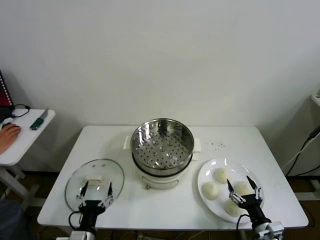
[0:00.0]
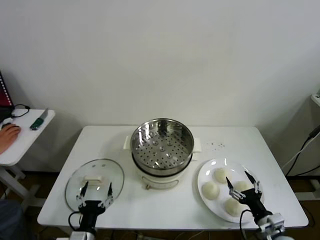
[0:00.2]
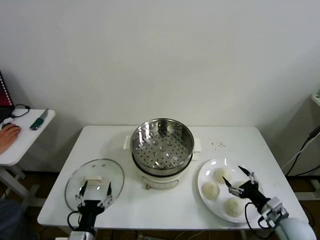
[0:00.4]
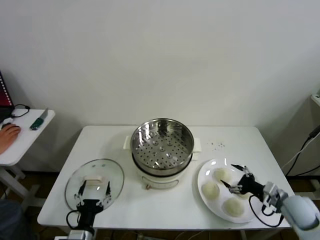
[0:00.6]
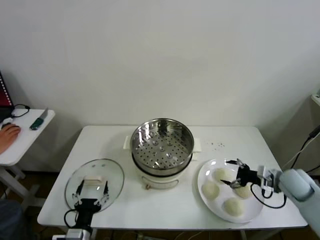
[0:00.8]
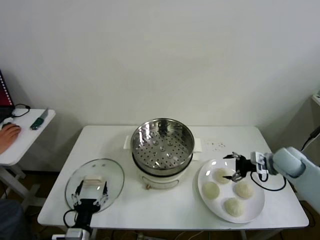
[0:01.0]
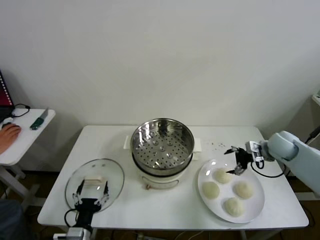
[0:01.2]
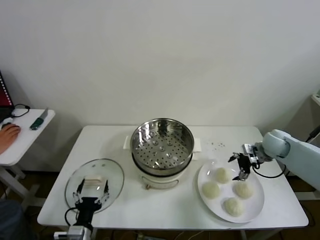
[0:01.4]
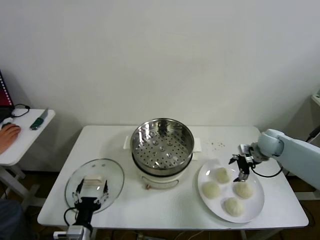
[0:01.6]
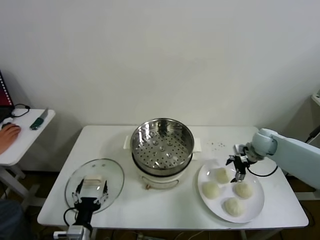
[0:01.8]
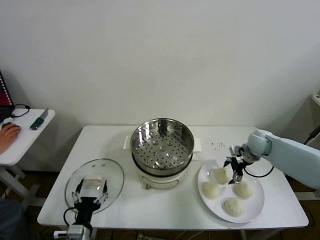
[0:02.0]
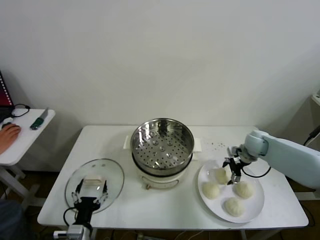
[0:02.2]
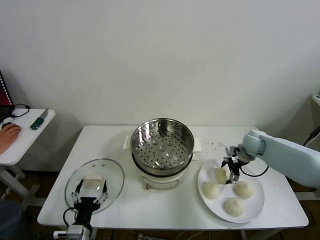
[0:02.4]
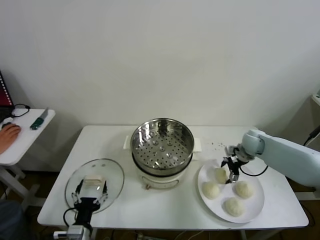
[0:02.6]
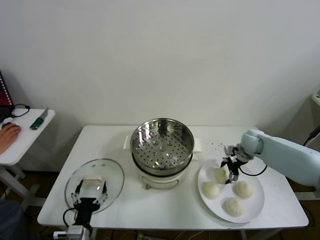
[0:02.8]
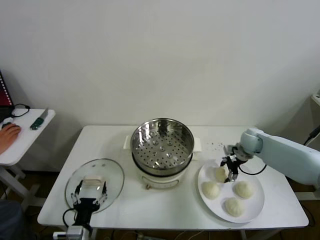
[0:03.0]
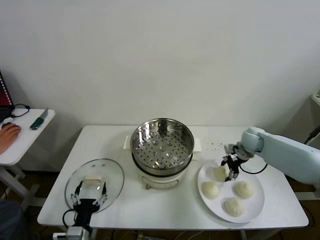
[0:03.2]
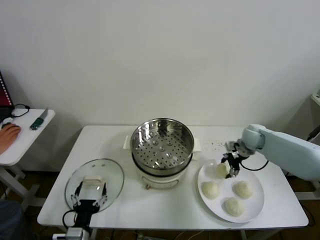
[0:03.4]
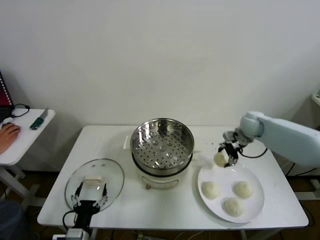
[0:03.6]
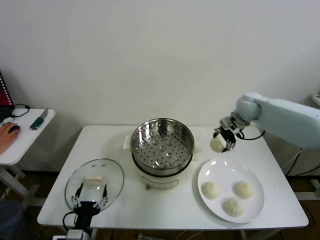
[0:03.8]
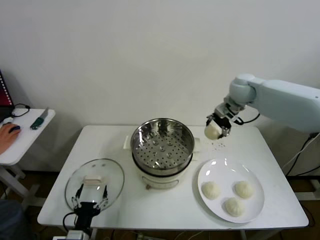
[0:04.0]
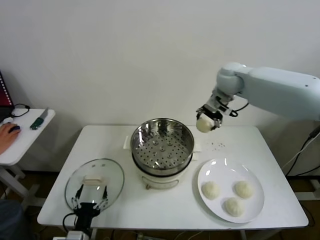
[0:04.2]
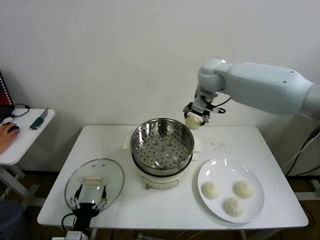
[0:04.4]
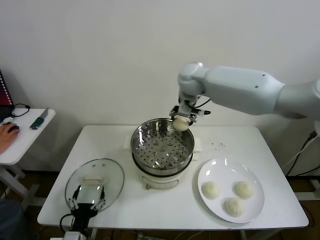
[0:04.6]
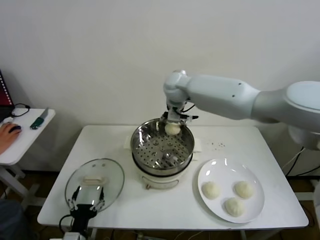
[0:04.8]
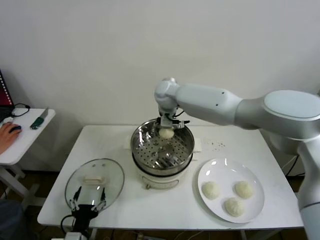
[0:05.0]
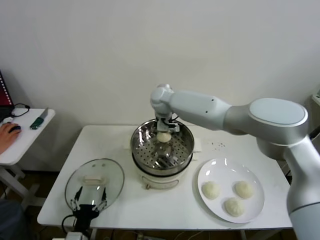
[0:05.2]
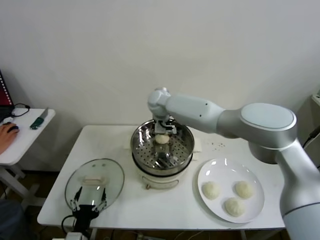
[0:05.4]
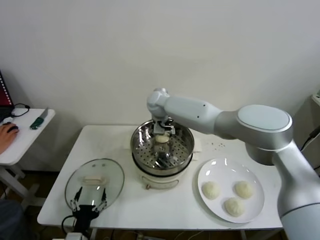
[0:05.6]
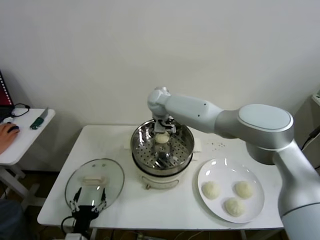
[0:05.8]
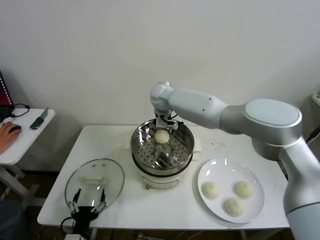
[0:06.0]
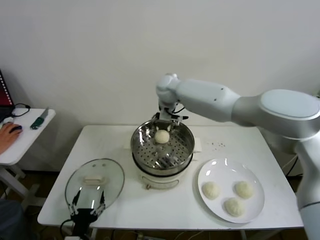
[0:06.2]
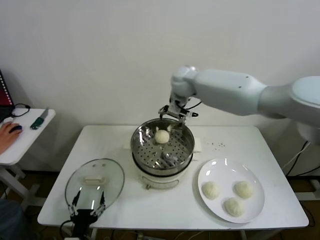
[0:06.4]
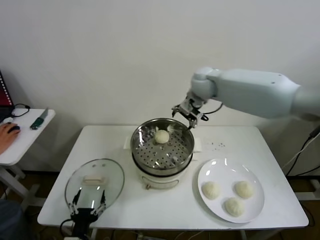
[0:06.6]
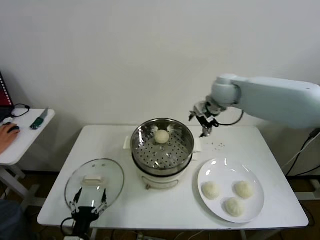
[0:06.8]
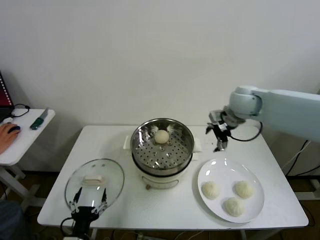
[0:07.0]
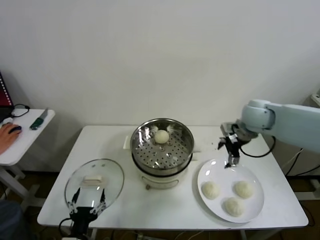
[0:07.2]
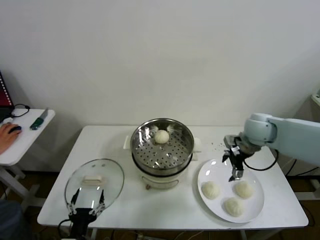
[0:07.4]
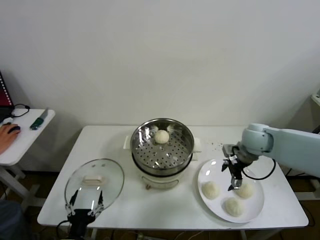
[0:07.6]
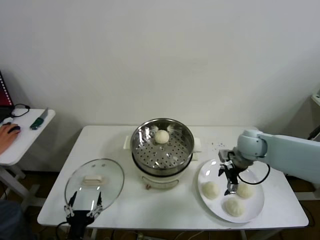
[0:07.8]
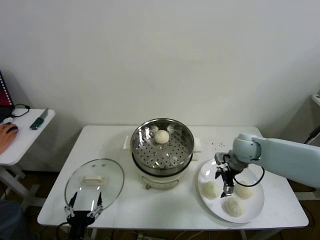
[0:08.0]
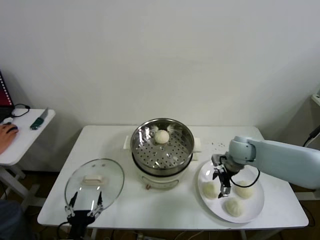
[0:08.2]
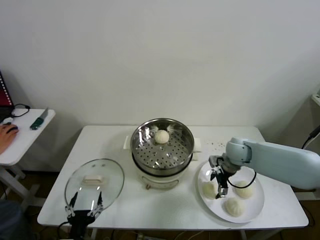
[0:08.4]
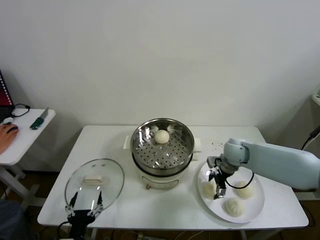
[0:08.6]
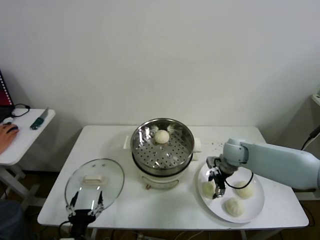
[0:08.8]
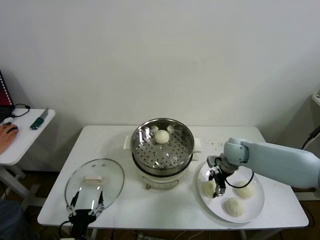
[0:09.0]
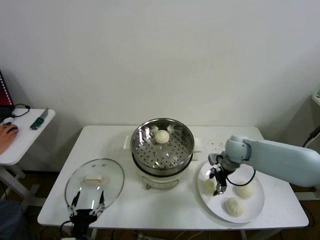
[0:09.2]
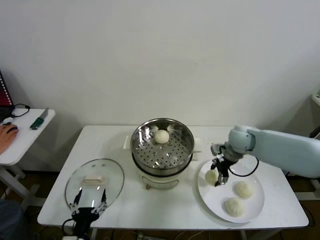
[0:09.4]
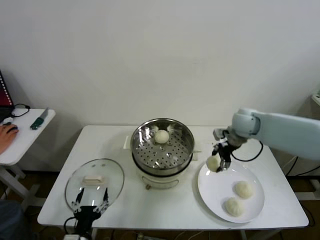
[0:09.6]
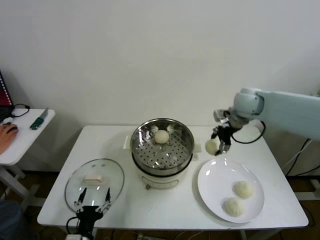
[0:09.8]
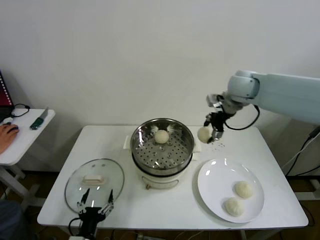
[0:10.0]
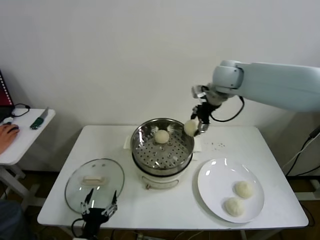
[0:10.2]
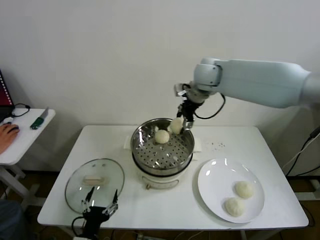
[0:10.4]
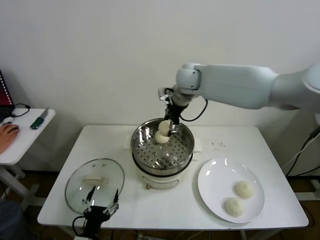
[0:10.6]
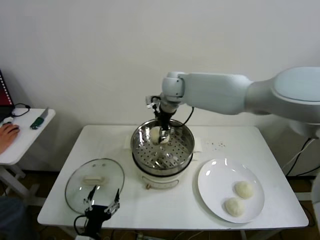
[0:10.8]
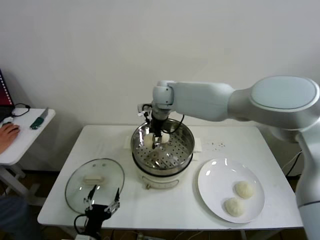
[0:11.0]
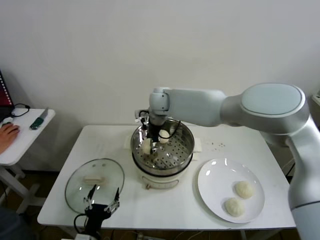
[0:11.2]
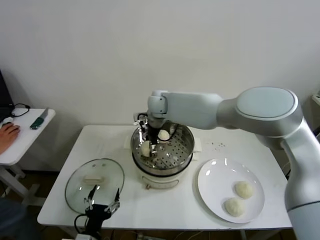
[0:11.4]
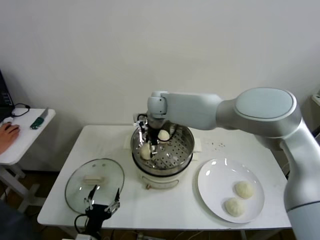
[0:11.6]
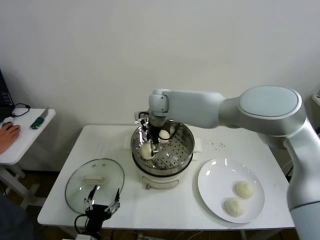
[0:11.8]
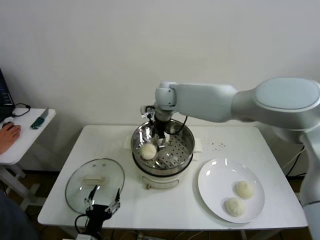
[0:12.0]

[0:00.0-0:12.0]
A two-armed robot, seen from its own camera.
Step, 0:00.0 to 0:03.0: Grasp the baozi in the plate with right gripper.
Step, 0:03.2 to 0:05.4: Place the baozi on the steamer with right gripper.
Step, 0:05.8 to 0:08.6: Grasp the baozi in the plate with right gripper.
Step, 0:08.8 to 0:11.4: Place the baozi on the steamer with right gripper.
0:01.6 to 0:03.0: The right gripper ends up roughly 5 cm from where it was, and closes.
0:03.0 to 0:04.4: The right gripper moves upward and to the left, approximately 35 cm.
0:04.4 to 0:06.0: The right gripper heads to the left and downward, covering approximately 20 cm, and opens up.
0:06.0 to 0:07.6: The right gripper goes some 35 cm to the right and backward.
0:07.6 to 0:09.0: The right gripper goes about 10 cm downward, and closes up.
0:09.0 to 0:10.4: The right gripper moves upward and to the left, about 30 cm.
0:10.4 to 0:12.0: The right gripper is displaced to the left and downward by some 15 cm, and opens its fingers.

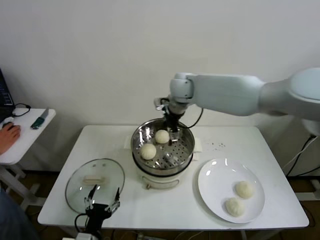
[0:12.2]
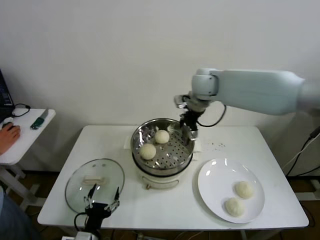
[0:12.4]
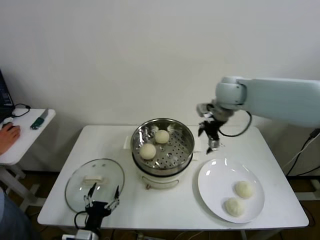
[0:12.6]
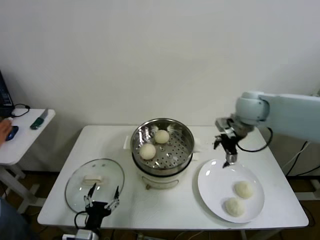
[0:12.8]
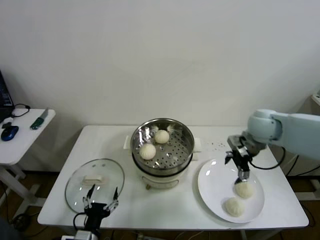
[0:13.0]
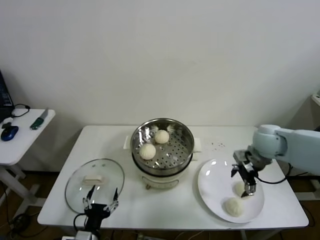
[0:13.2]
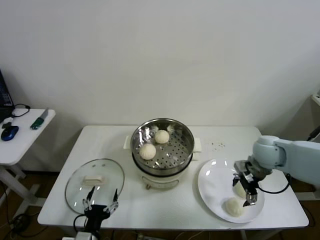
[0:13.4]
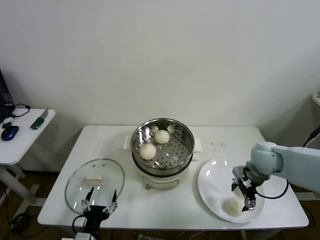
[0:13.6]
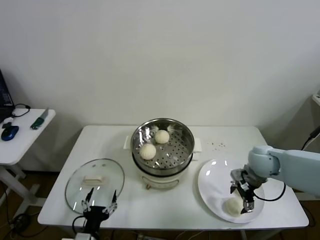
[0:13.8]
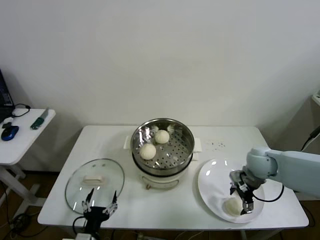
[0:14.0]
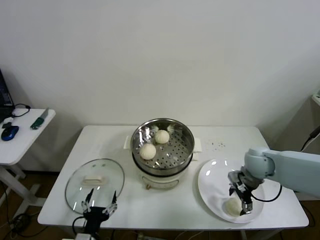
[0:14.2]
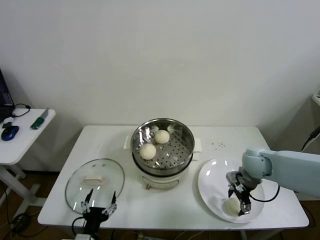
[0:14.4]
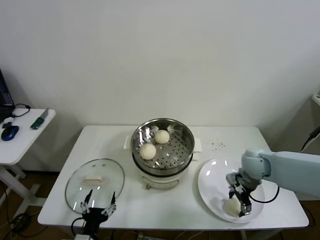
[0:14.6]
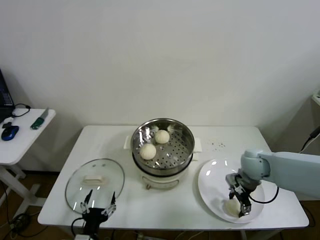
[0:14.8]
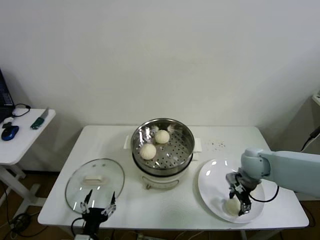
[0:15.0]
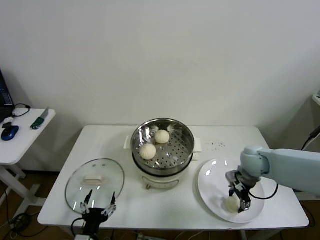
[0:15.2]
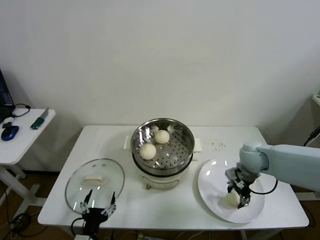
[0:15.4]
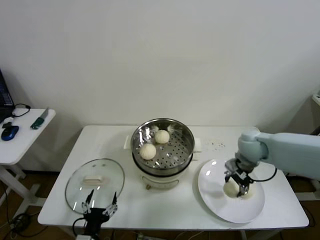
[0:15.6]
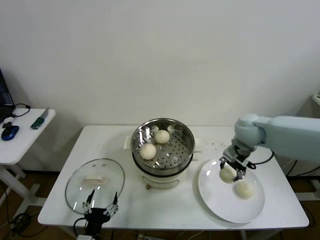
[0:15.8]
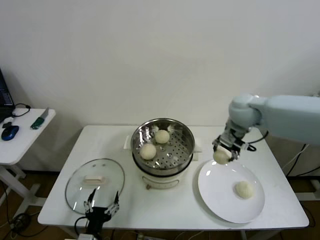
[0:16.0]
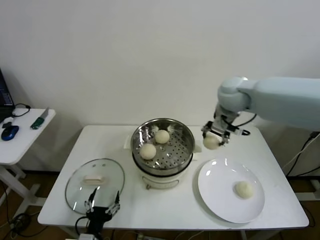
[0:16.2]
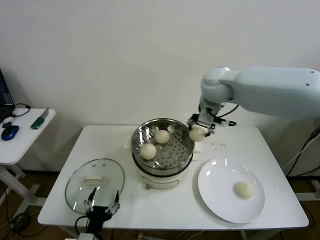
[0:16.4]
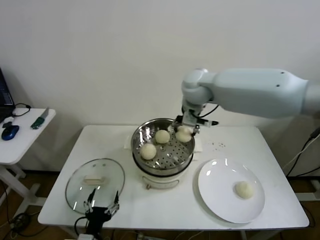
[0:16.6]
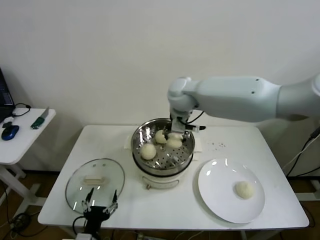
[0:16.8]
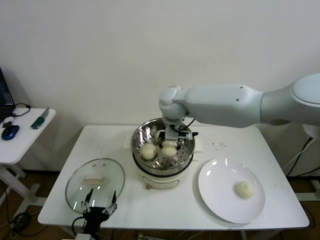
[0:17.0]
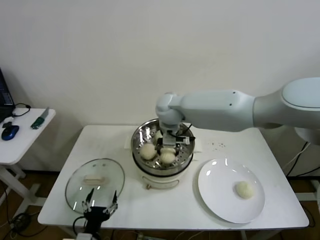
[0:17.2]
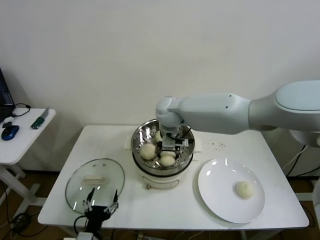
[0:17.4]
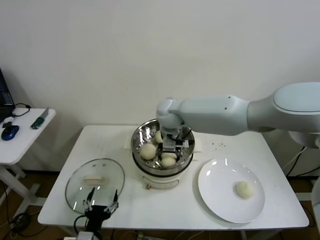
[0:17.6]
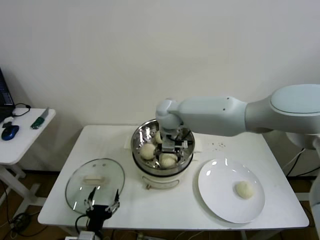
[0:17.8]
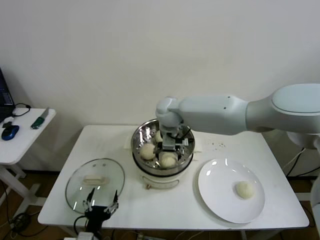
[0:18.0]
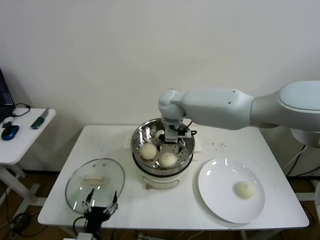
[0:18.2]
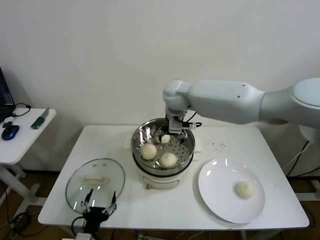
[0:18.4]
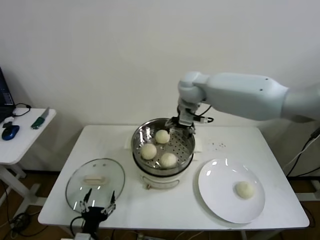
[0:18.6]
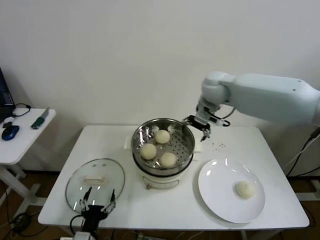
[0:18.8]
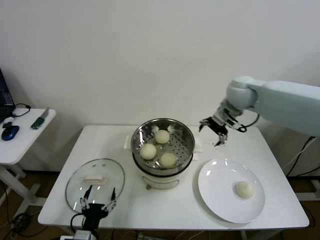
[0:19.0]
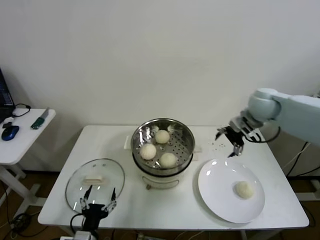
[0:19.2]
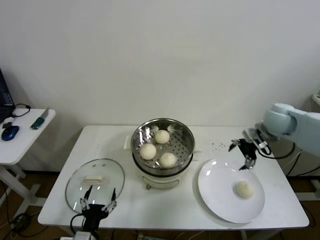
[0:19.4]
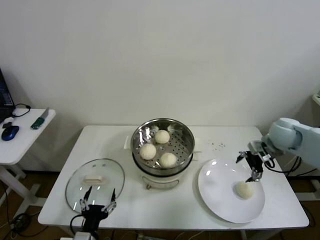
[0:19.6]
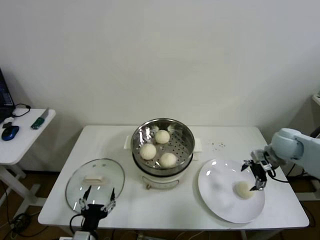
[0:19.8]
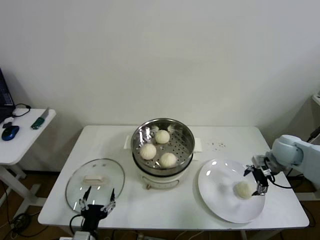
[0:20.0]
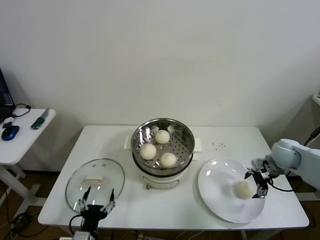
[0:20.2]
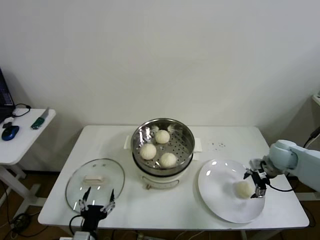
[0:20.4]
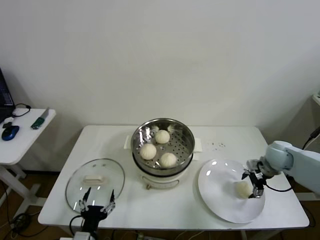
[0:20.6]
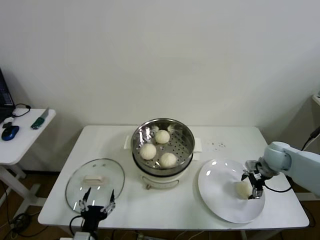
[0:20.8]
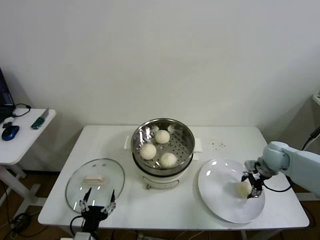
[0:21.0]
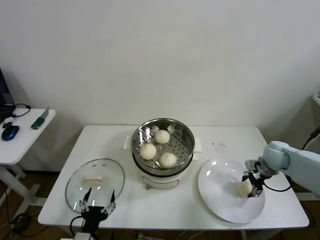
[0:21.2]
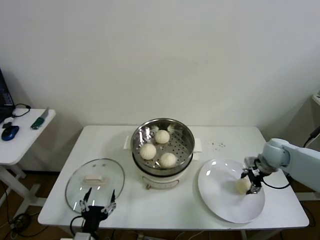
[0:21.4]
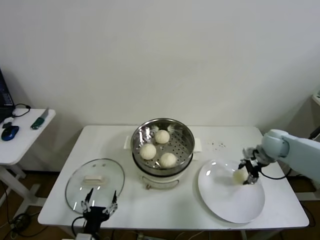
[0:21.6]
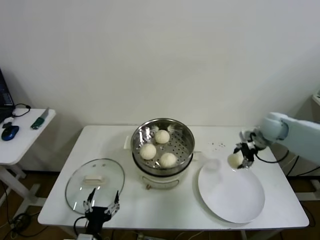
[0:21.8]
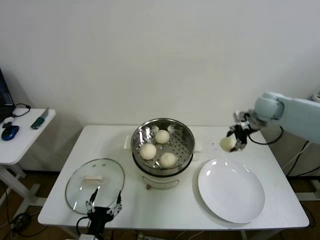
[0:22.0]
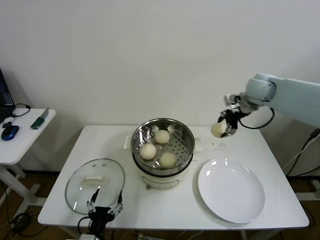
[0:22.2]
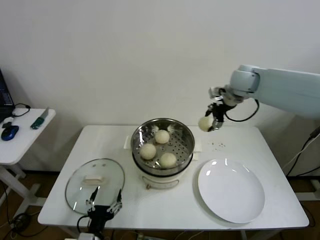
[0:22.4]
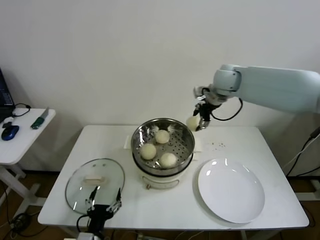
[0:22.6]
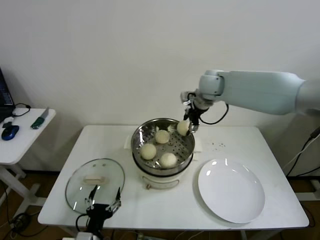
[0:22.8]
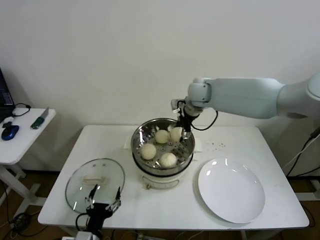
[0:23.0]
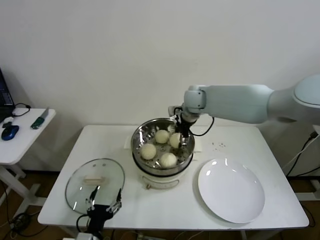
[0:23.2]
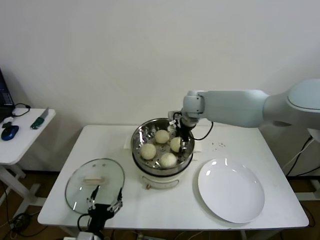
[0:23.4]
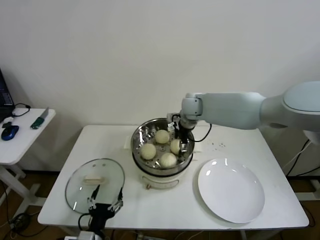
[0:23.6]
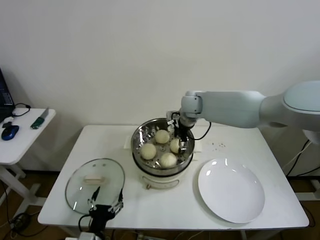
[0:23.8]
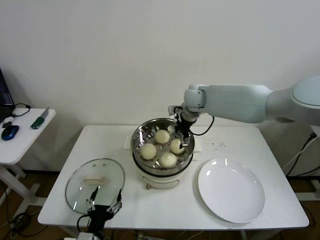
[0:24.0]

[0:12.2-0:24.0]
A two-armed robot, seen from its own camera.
Step, 0:12.2 to 0:14.6: Grasp the baozi in the plate with right gripper.
Step, 0:15.0 to 0:17.8: Place the baozi on the steamer with right gripper.
Step, 0:18.0 to 0:21.0: Grasp the baozi in the plate with right gripper.
Step, 0:21.2 to 0:23.8: Place the baozi on the steamer with right gripper.
0:12.2 to 0:13.6: The right gripper heads to the right, backward and downward, covering roughly 35 cm.
0:13.6 to 0:15.2: The right gripper closes up.
0:15.2 to 0:16.6: The right gripper heads upward and to the left, covering roughly 30 cm.
0:16.6 to 0:18.2: The right gripper shifts some 10 cm downward and to the left, and opens its fingers.
0:18.2 to 0:19.6: The right gripper travels to the right by some 35 cm.
0:19.6 to 0:21.0: The right gripper travels downward by about 10 cm, and closes up.
0:21.0 to 0:22.6: The right gripper moves upward, to the left and forward, roughly 35 cm.
0:22.6 to 0:24.0: The right gripper goes about 15 cm to the left and downward, and opens up.
